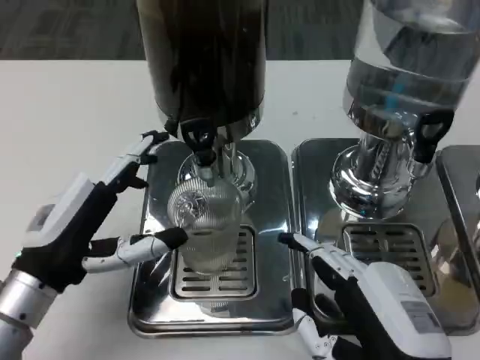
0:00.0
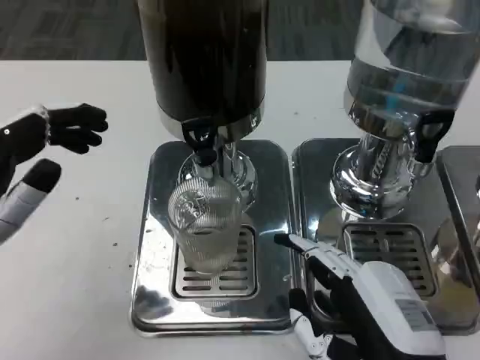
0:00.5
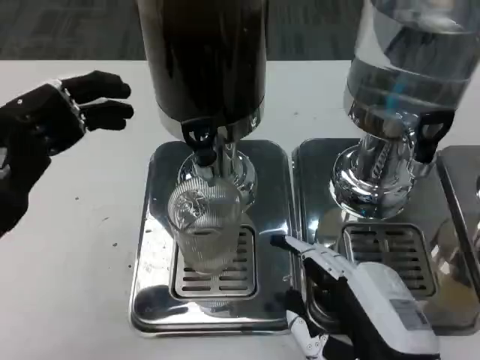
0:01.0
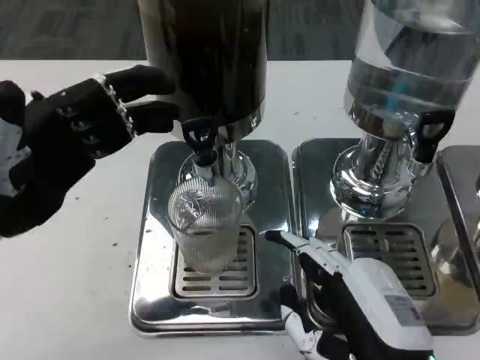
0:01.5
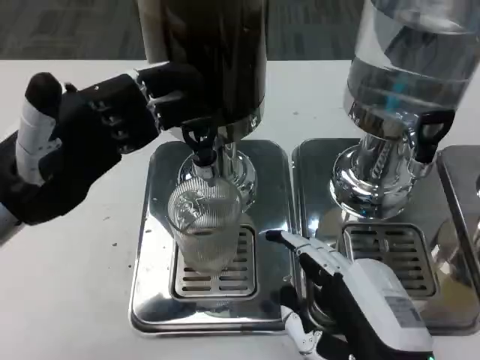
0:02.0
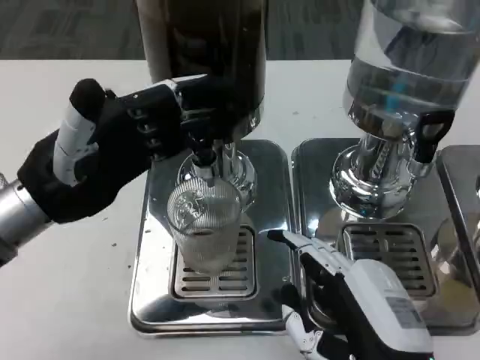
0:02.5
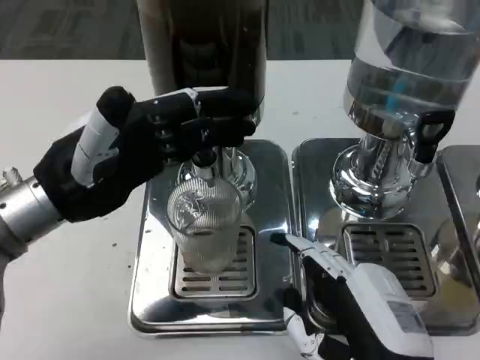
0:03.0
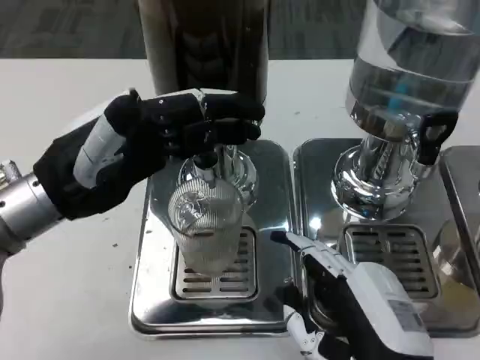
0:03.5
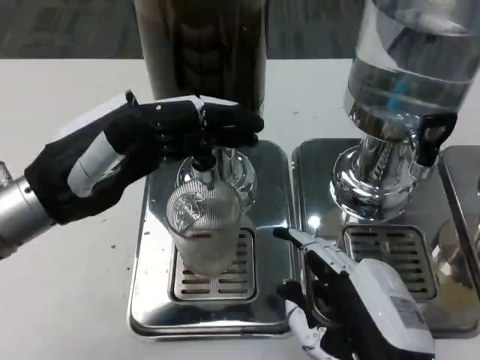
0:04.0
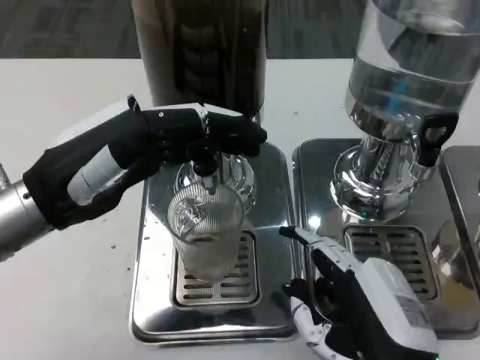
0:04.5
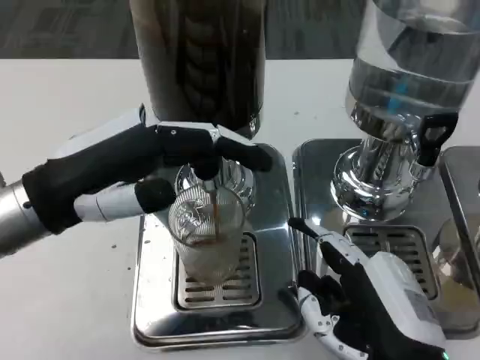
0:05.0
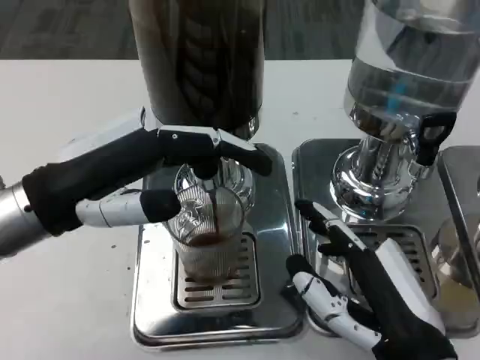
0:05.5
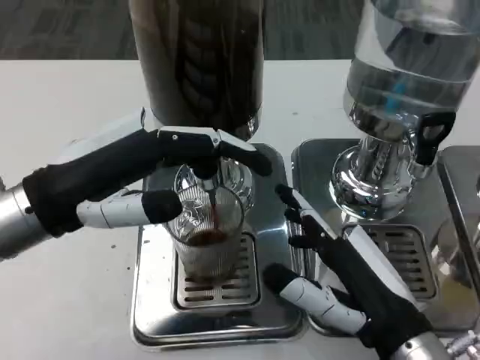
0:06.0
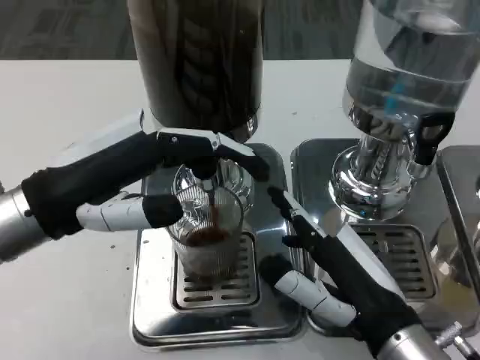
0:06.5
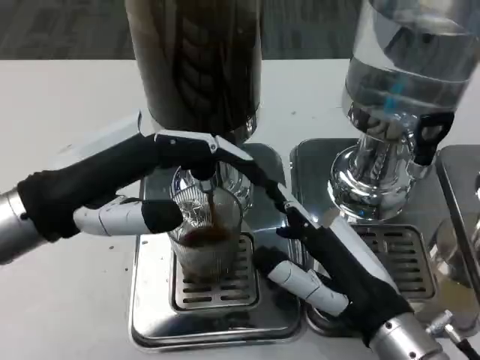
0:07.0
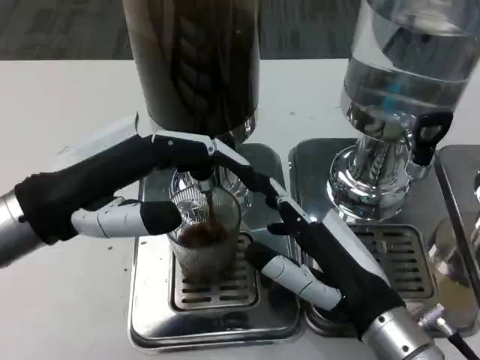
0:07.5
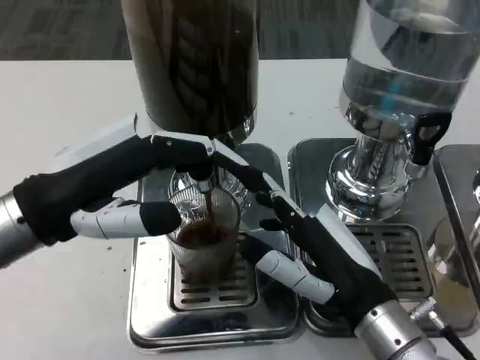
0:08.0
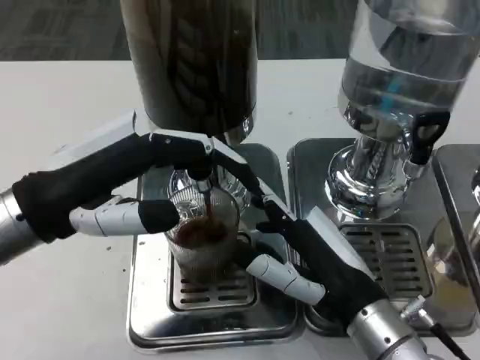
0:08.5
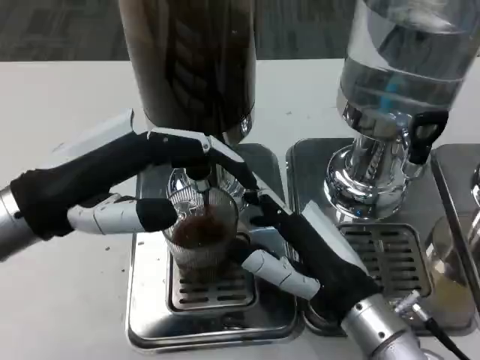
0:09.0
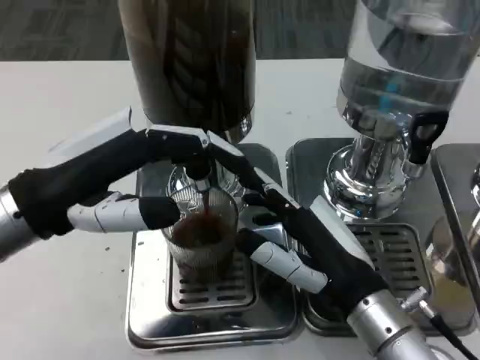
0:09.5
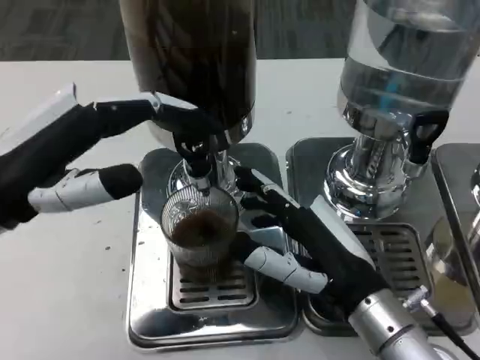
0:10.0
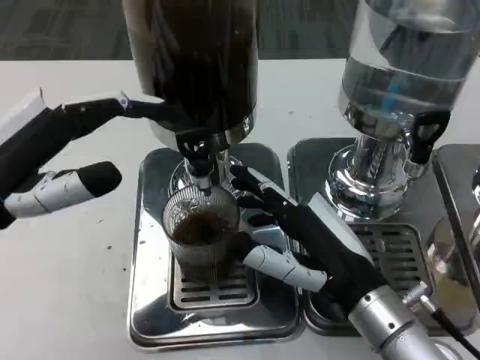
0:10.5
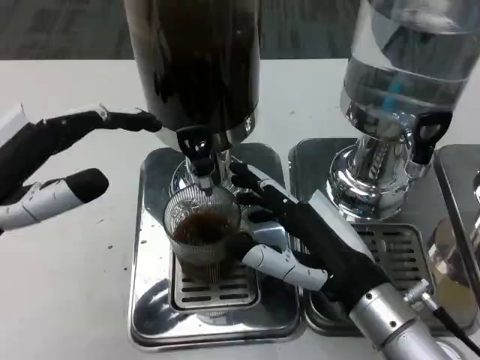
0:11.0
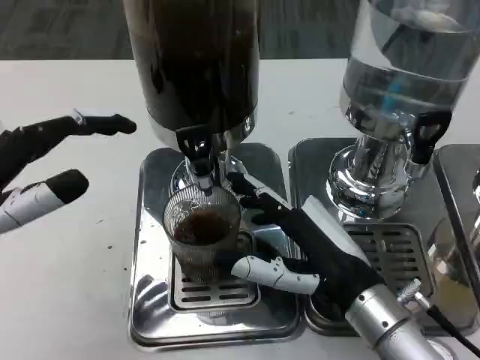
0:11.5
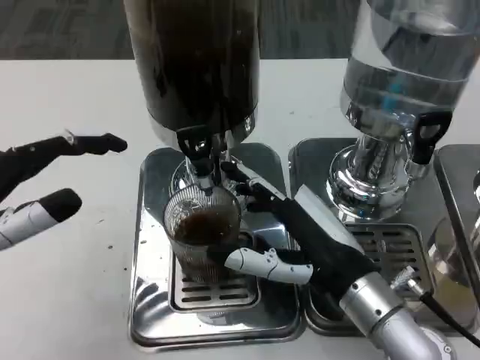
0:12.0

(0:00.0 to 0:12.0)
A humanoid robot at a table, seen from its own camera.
Task of the whole recording: Grasp the cup under the faucet to collect the drink, then remove the cup.
0:00.0 - 0:02.0: The left hand travels upward by some 10 cm.
0:10.0 - 0:12.0: The left hand shifts by about 5 cm.

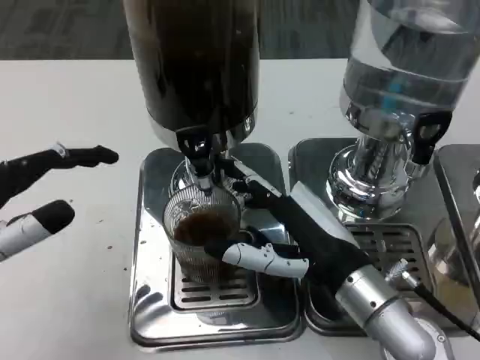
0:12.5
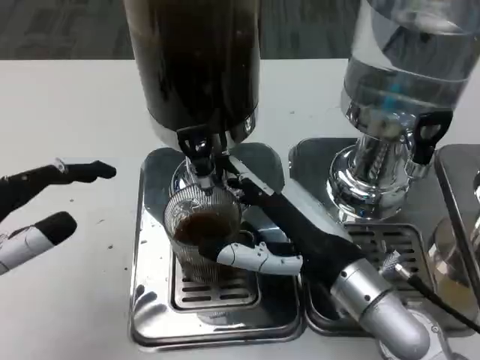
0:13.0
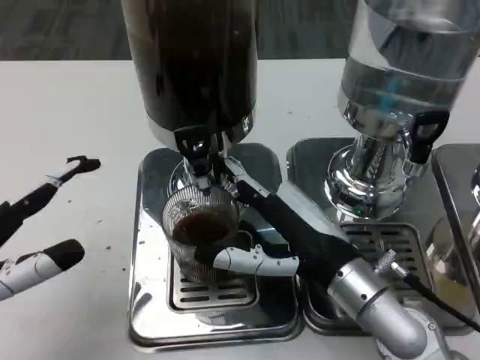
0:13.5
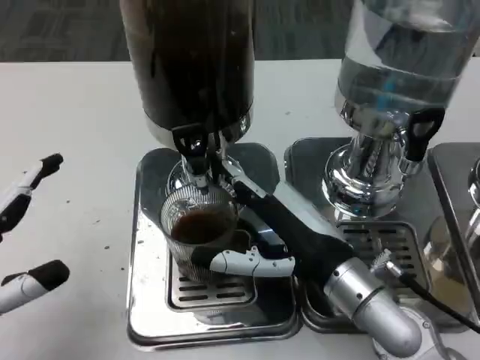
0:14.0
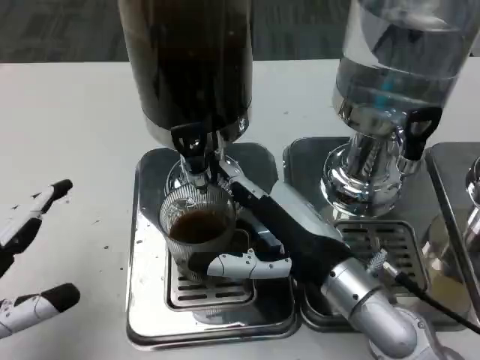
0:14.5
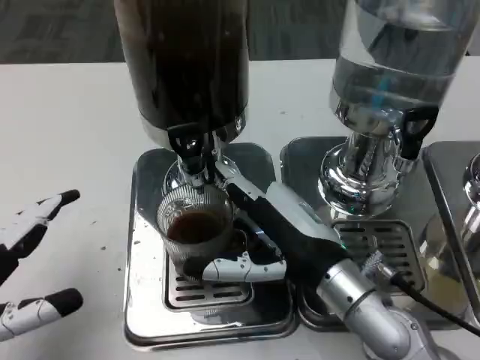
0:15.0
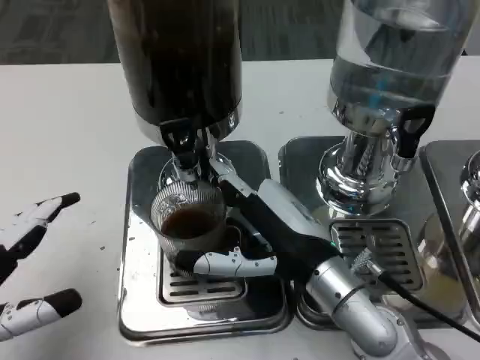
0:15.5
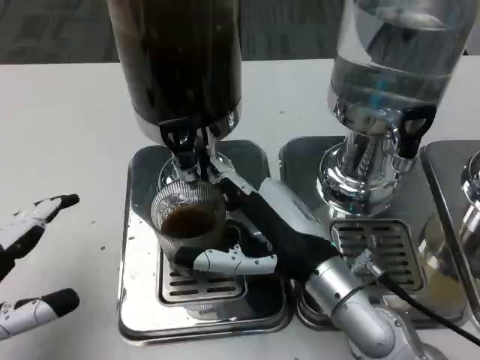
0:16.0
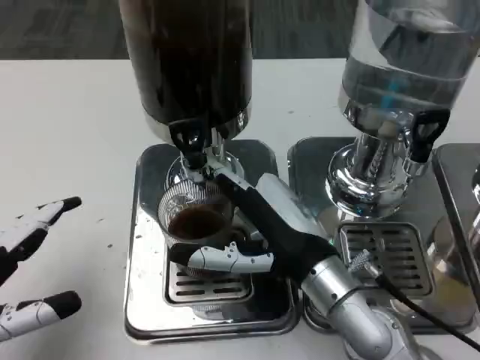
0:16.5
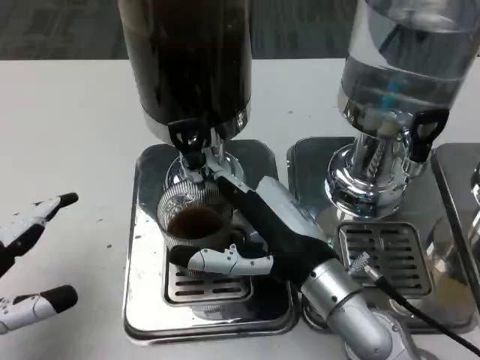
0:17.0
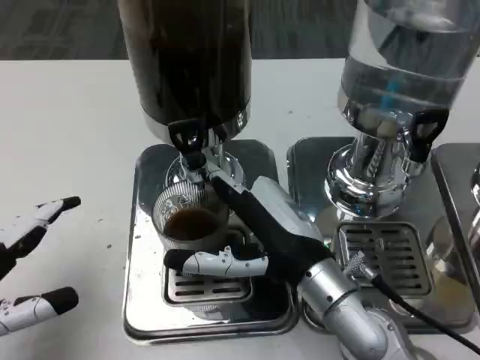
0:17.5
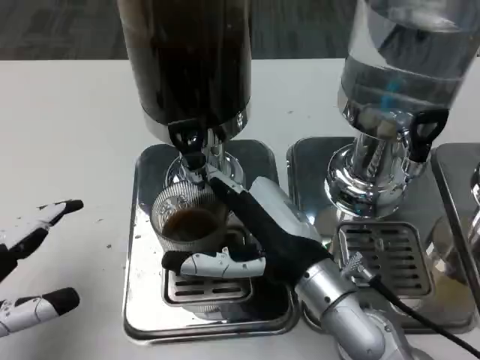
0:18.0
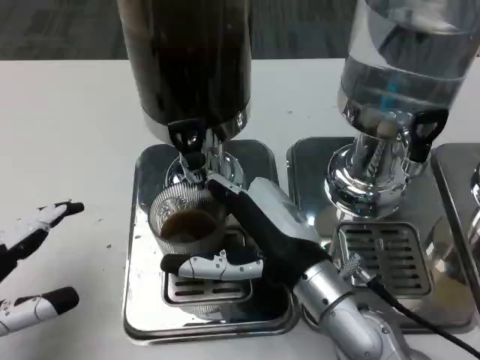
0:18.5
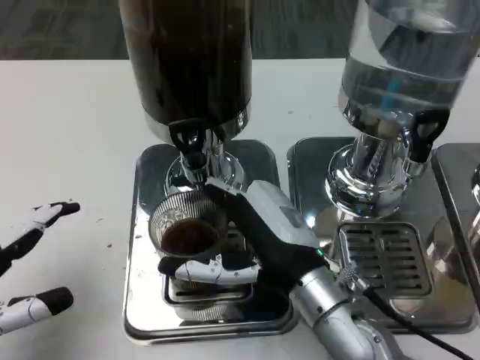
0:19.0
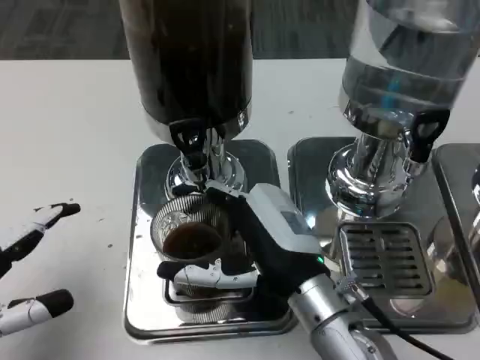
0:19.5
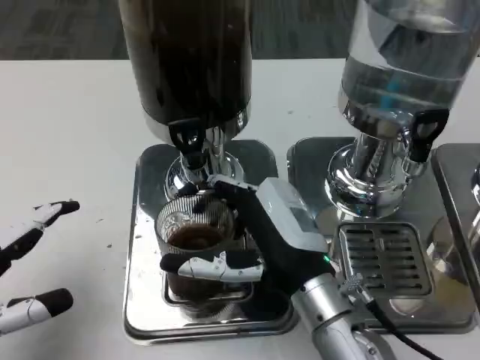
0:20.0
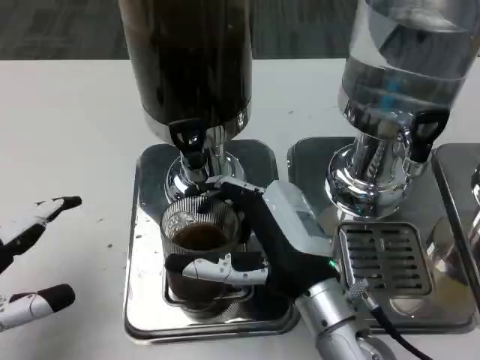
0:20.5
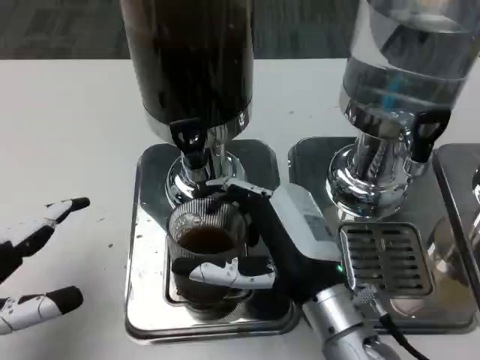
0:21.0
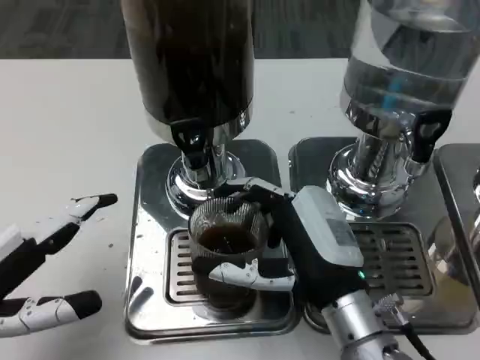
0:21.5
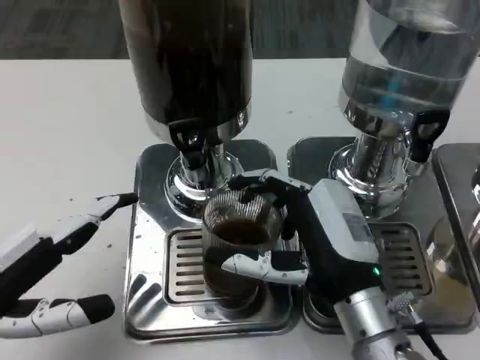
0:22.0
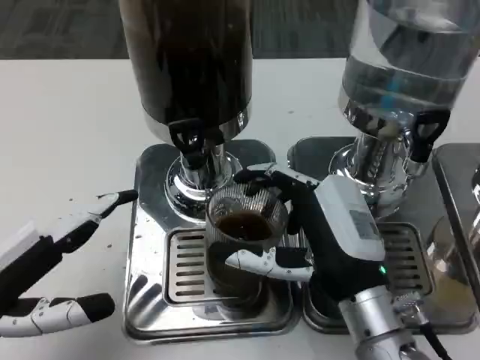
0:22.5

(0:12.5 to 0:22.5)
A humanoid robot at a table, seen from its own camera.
Task of the whole recording: Grasp the cup under the faucet to collect the drink, then remove the cup.
0:12.5 - 0:14.5: The left hand moves downward, about 5 cm.
0:16.5 - 0:18.5: The two hands keep their place.
0:18.5 - 0:20.5: There are only small adjustments of the hands.

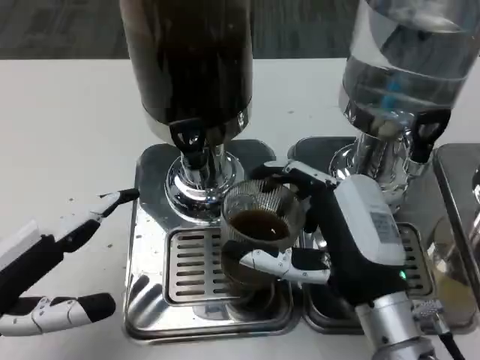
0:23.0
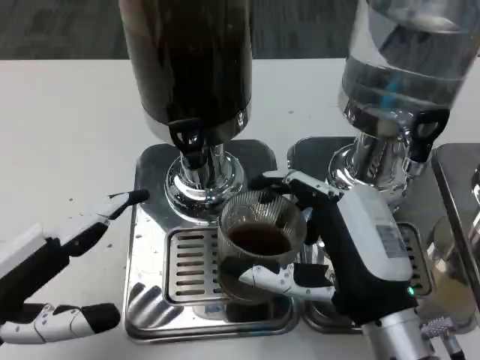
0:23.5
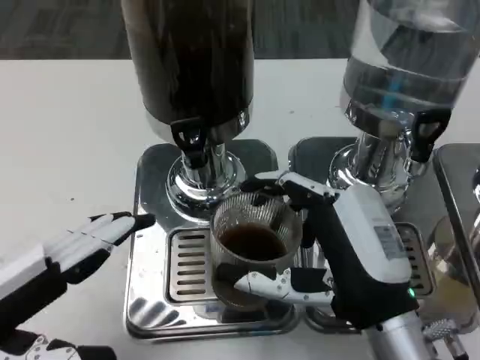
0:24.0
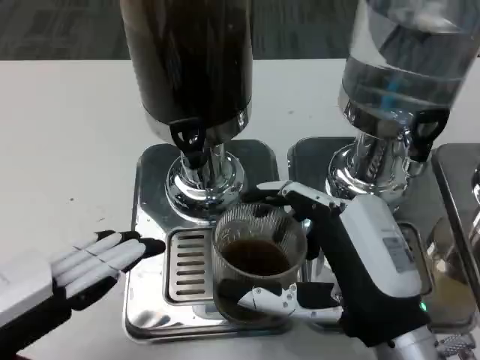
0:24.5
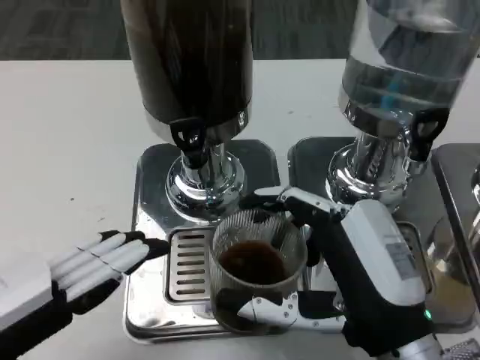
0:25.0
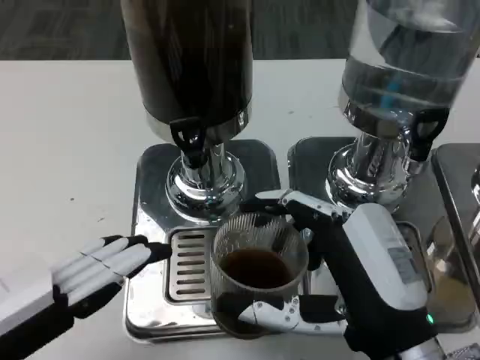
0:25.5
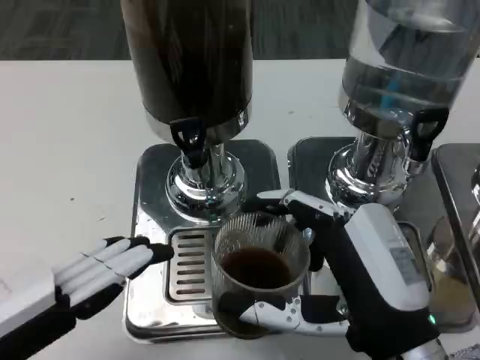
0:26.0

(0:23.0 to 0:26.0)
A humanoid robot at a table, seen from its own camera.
Task of the whole recording: Grasp the cup under the faucet to collect the drink, then remove the cup.
0:24.5 - 0:26.0: The two hands keep their place.

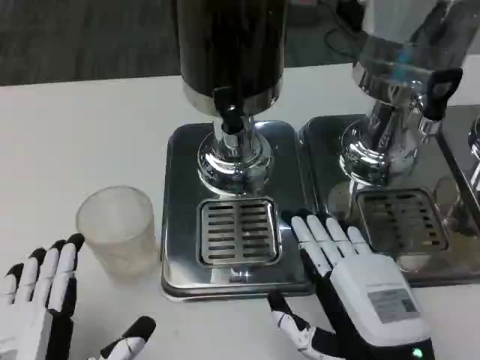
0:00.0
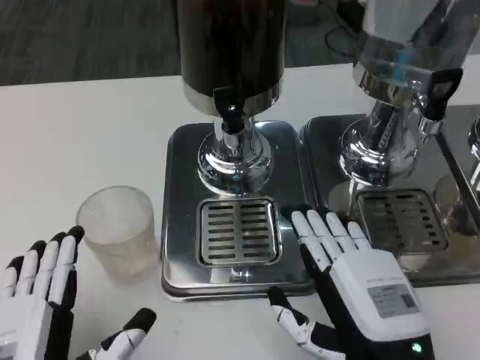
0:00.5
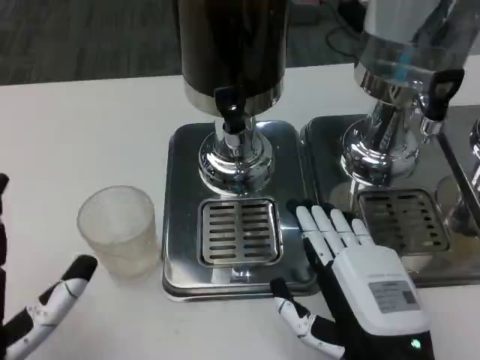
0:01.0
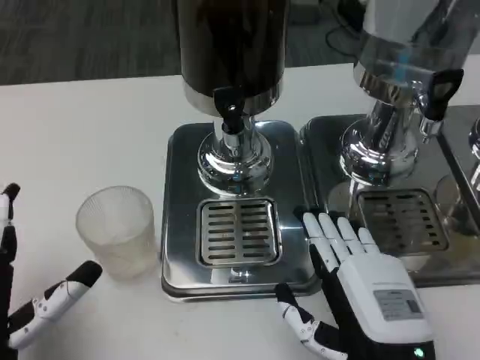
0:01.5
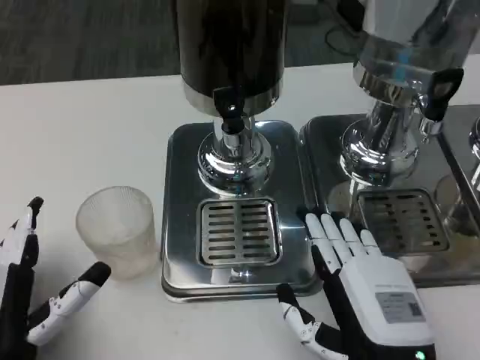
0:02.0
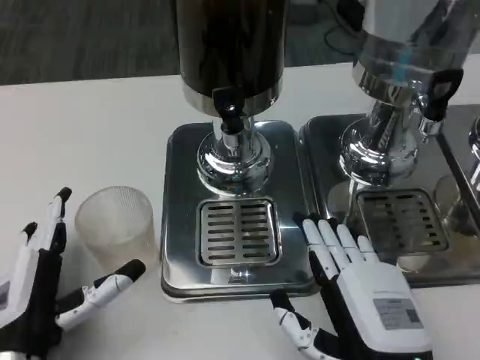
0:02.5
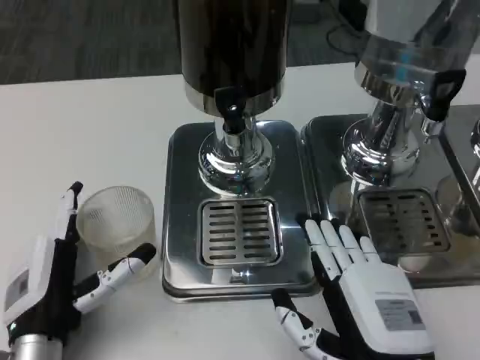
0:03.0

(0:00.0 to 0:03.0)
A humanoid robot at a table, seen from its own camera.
Task of the whole recording: Grasp the cup under the faucet to collect the drink, then remove the cup.
0:00.0 - 0:01.5: The left hand ends up about 5 cm from where it was.
0:01.5 - 0:03.0: The left hand moves forward, some 5 cm.
